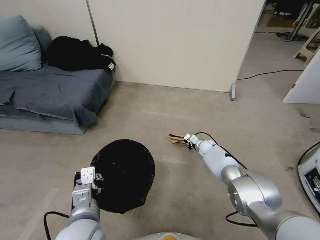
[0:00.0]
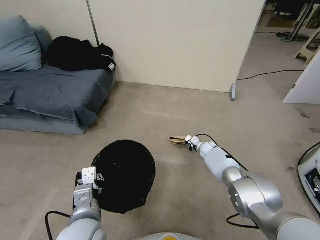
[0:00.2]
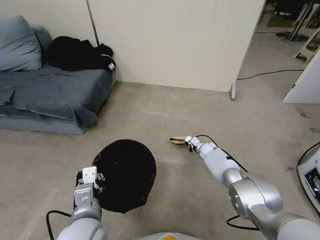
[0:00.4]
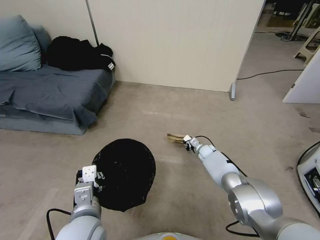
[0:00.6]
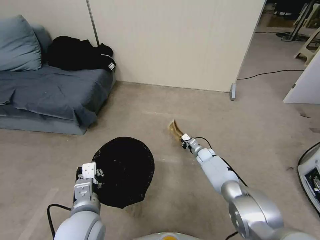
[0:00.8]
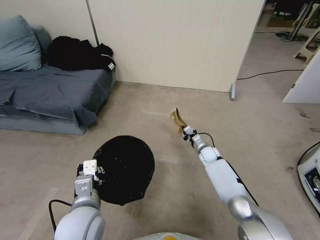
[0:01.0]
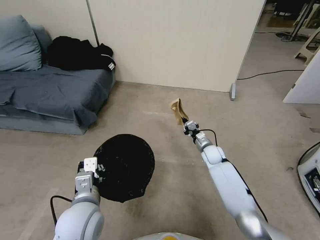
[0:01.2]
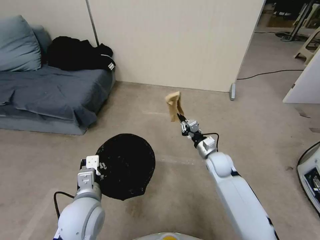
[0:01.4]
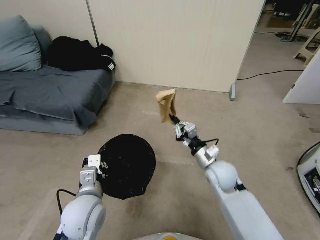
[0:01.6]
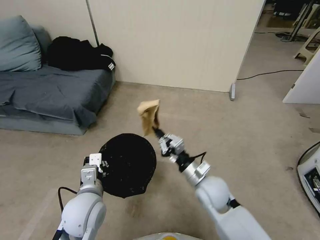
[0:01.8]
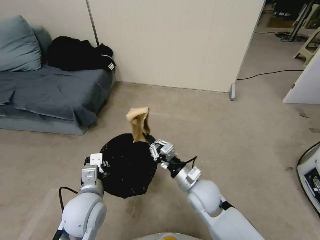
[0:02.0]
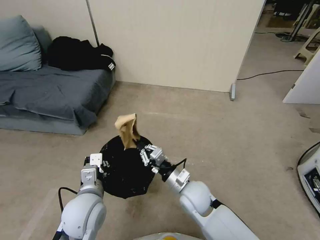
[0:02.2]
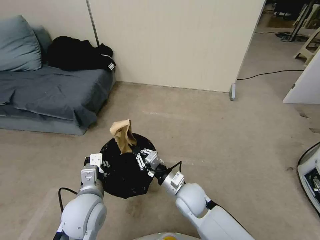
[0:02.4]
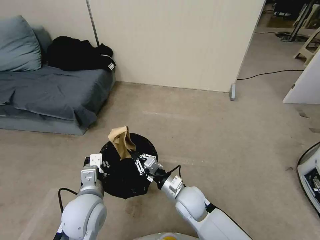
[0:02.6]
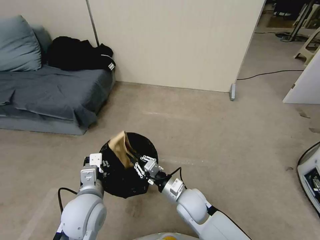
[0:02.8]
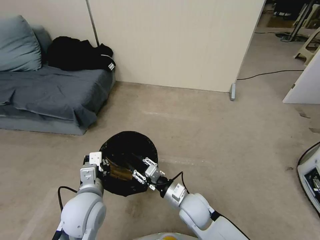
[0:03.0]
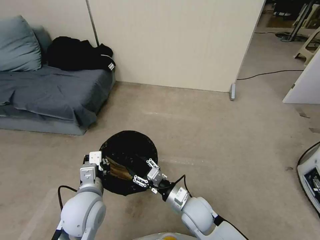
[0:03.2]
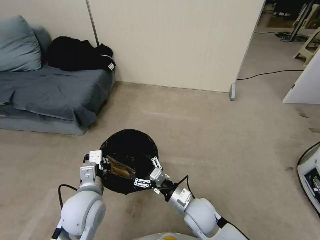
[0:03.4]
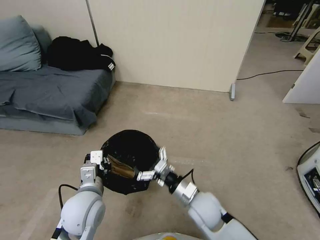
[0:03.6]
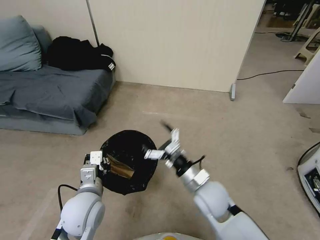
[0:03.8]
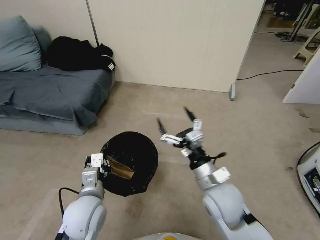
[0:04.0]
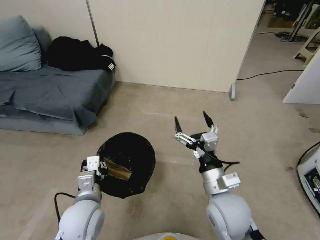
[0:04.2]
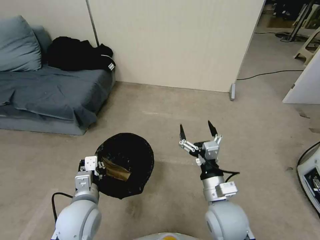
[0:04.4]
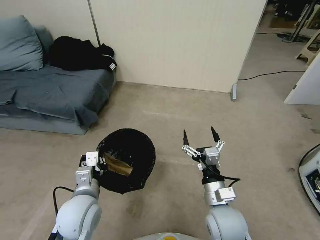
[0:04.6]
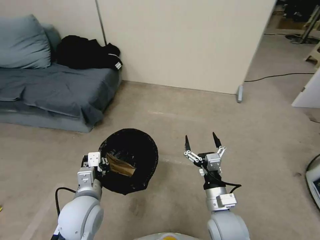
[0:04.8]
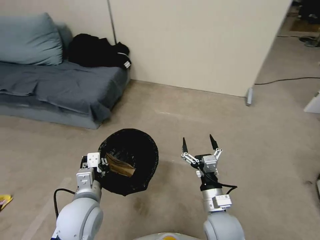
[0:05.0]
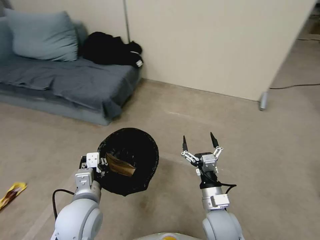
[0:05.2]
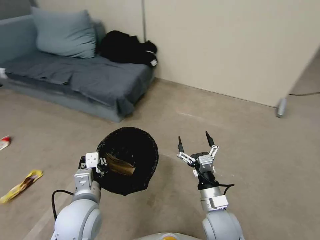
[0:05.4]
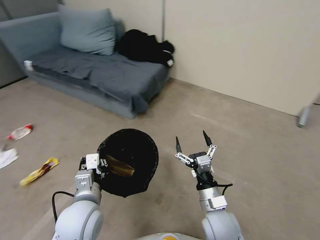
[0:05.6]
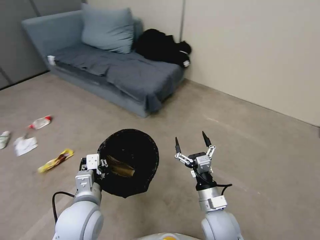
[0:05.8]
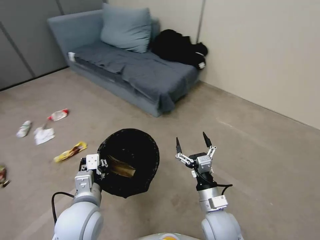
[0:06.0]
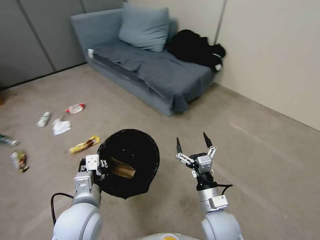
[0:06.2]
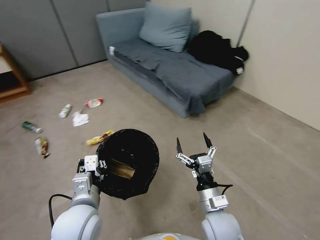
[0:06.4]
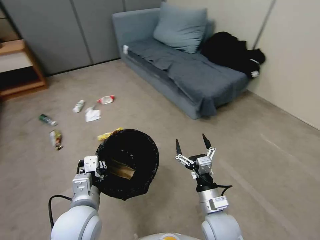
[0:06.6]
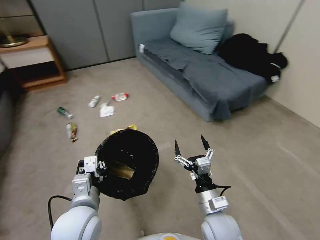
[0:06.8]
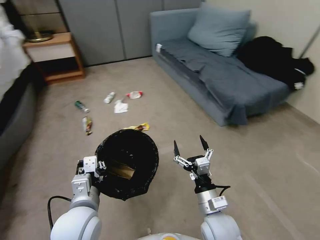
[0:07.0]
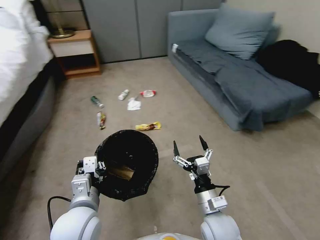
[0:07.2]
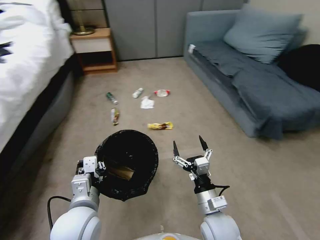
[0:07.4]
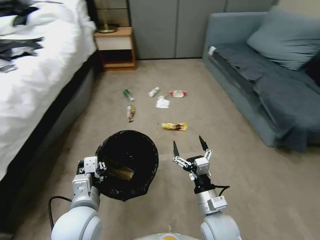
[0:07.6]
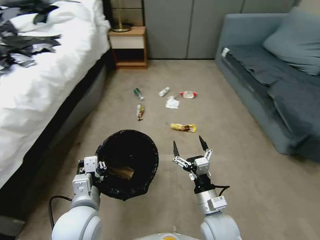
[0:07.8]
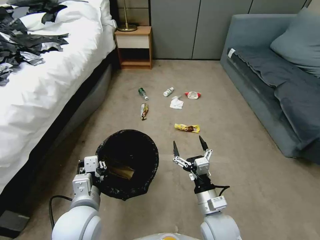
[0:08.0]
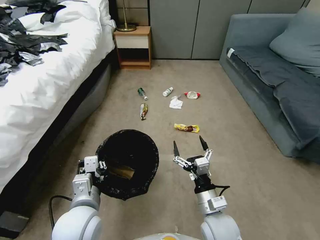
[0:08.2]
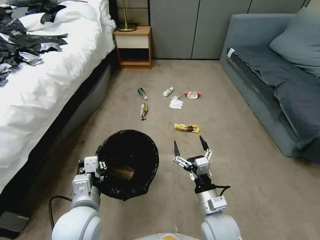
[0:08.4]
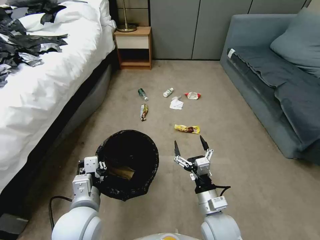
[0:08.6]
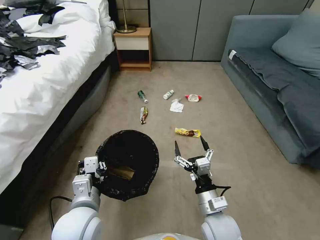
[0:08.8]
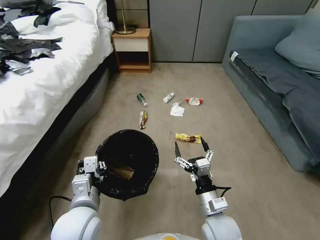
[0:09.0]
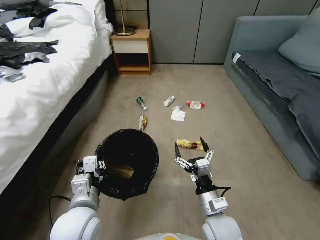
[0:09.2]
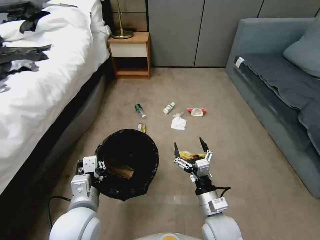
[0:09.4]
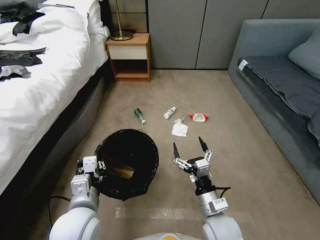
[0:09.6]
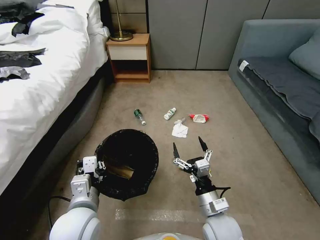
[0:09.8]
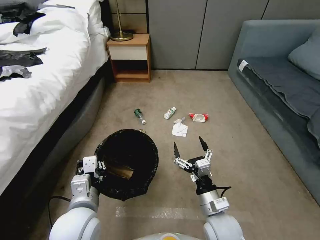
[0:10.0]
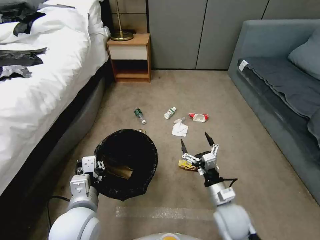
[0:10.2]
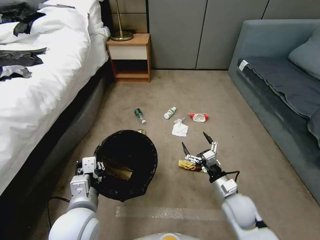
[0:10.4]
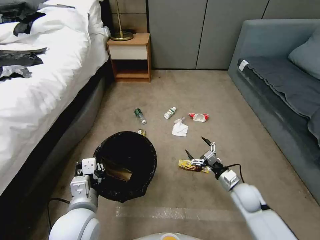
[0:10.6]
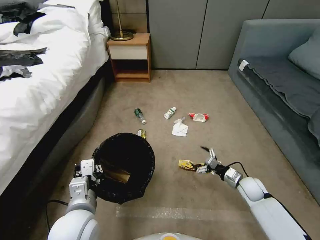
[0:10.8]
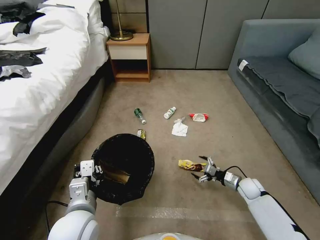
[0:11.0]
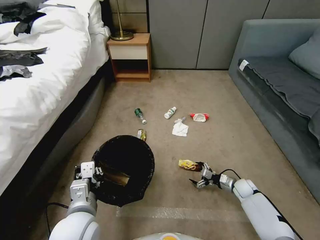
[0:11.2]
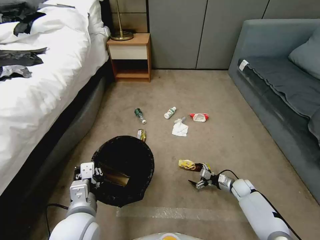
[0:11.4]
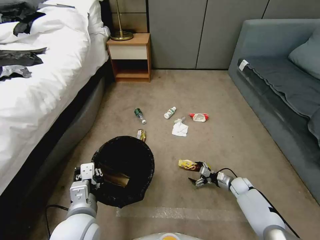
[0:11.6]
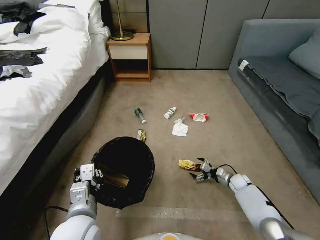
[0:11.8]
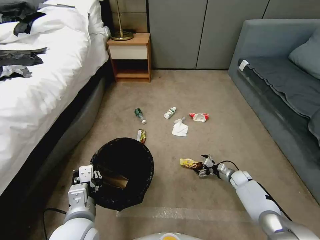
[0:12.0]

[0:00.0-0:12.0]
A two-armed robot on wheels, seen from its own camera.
Task of the whole recording: Pick up the trash bin, then pick up the garbage from the floor and place it into the trash bin.
0:00.0 to 0:01.6: The right gripper is displaced backward and upward by about 25 cm. Meanwhile the left gripper goes about 5 cm forward.
0:01.6 to 0:03.0: The right gripper shifts some 15 cm to the left, backward and downward.
0:03.0 to 0:04.4: The right gripper heads upward, to the right and backward, covering roughly 15 cm, and opens up.
0:04.4 to 0:06.0: The right gripper shifts some 5 cm downward.
0:09.0 to 0:10.4: The right gripper shifts some 10 cm to the right and forward.
0:10.4 to 0:12.0: The right gripper heads downward, forward and to the right, covering some 30 cm.

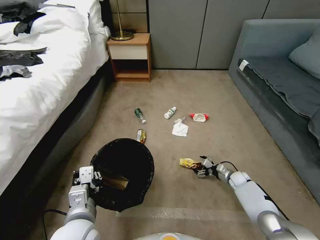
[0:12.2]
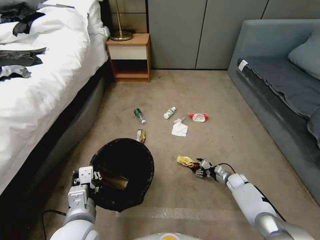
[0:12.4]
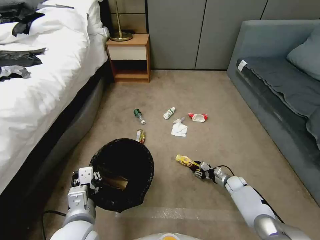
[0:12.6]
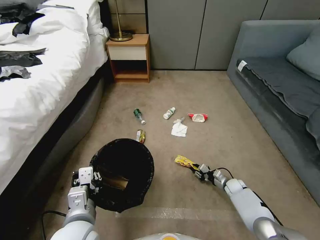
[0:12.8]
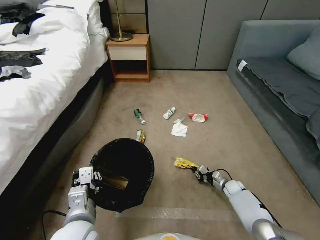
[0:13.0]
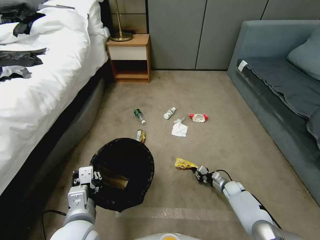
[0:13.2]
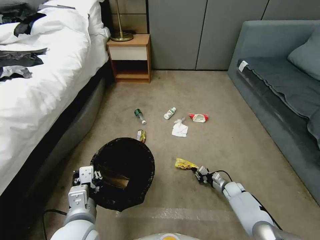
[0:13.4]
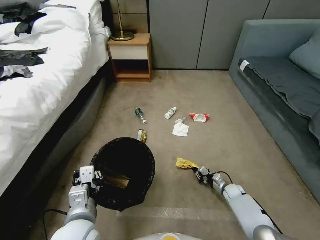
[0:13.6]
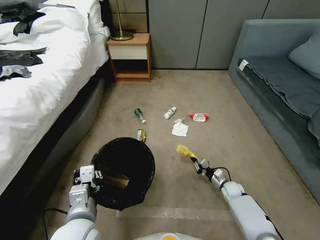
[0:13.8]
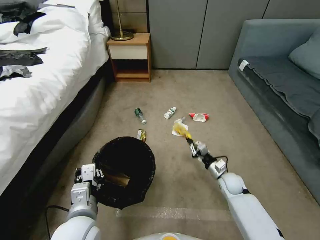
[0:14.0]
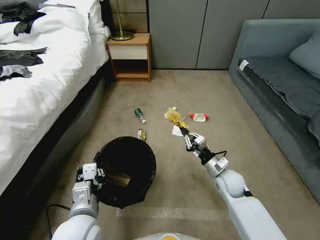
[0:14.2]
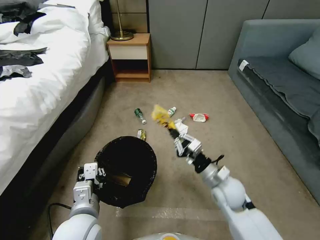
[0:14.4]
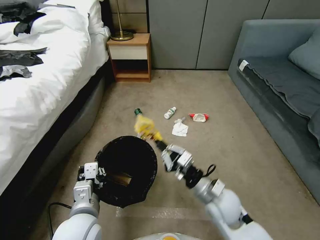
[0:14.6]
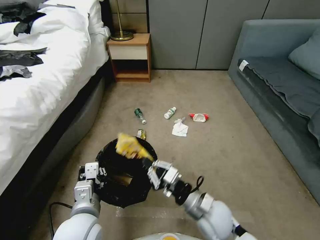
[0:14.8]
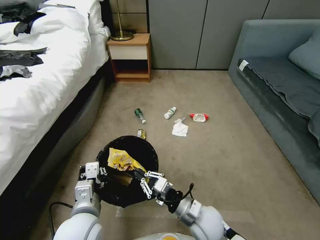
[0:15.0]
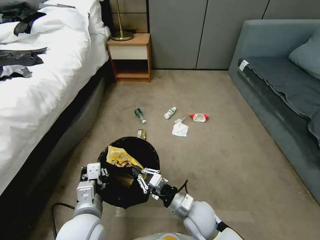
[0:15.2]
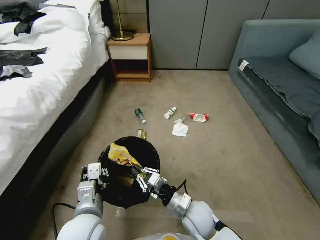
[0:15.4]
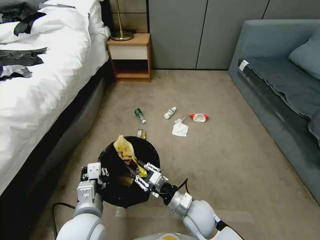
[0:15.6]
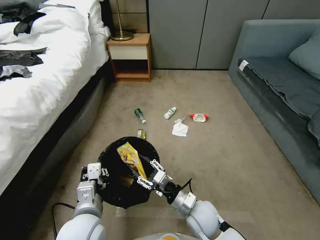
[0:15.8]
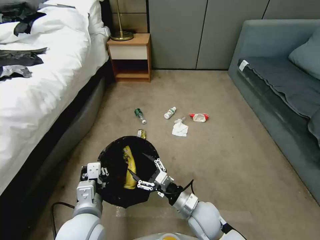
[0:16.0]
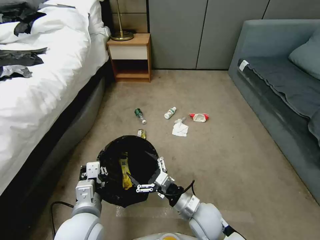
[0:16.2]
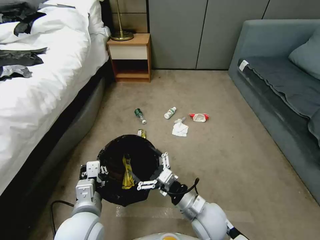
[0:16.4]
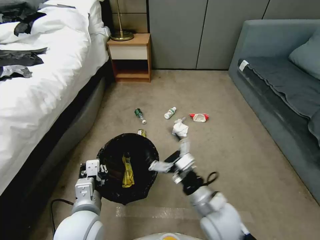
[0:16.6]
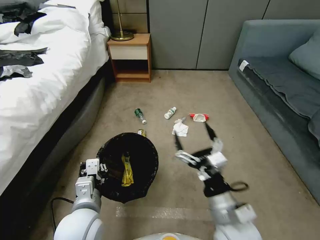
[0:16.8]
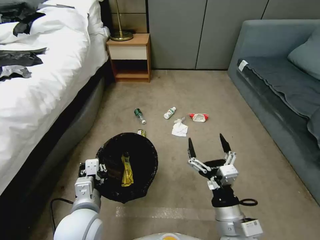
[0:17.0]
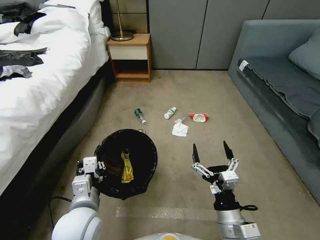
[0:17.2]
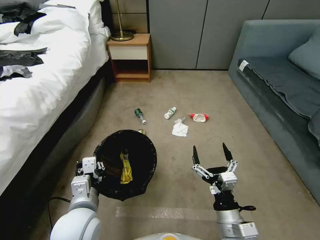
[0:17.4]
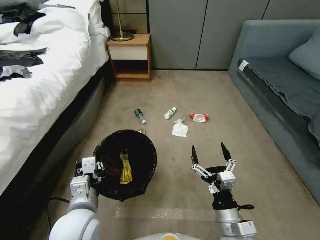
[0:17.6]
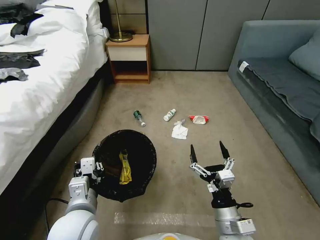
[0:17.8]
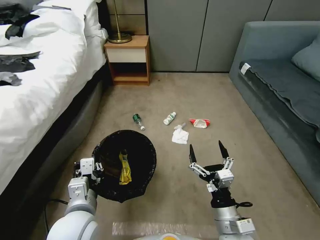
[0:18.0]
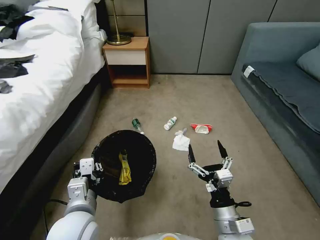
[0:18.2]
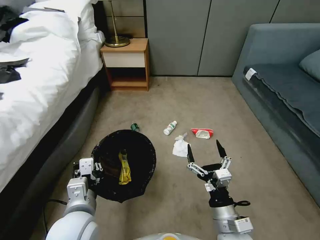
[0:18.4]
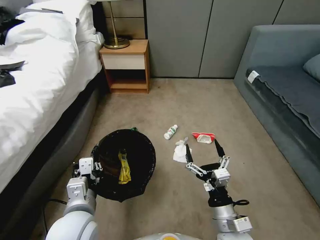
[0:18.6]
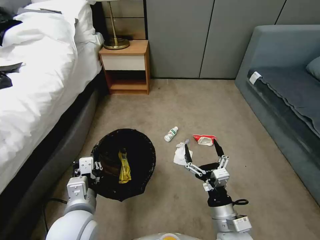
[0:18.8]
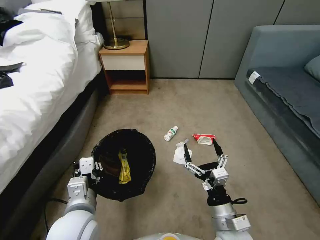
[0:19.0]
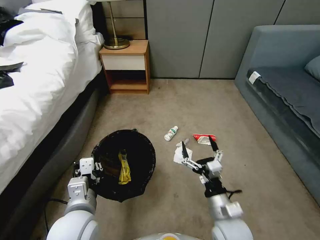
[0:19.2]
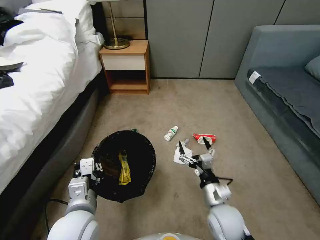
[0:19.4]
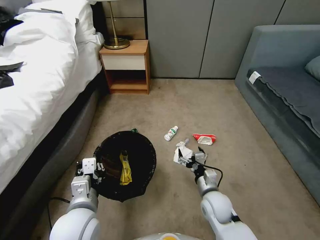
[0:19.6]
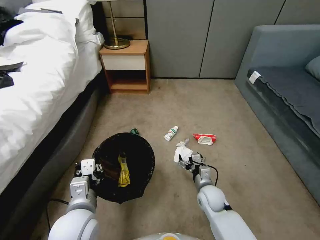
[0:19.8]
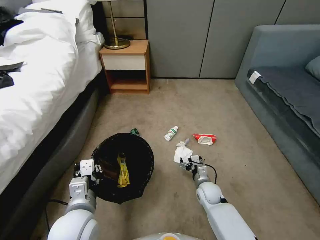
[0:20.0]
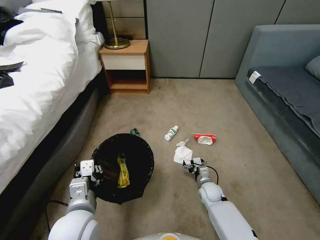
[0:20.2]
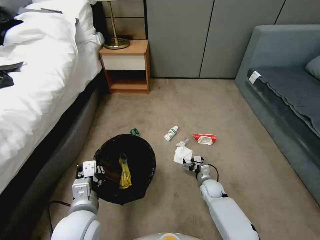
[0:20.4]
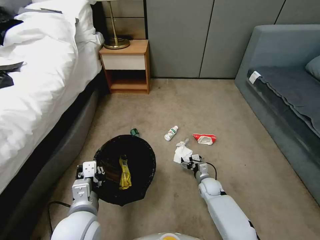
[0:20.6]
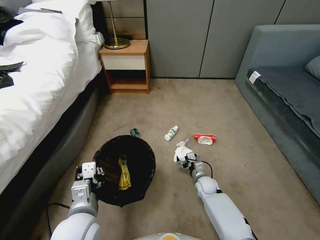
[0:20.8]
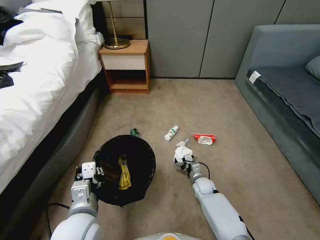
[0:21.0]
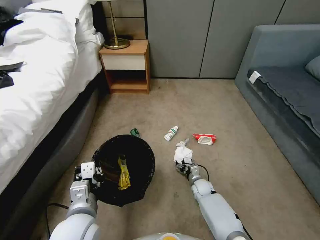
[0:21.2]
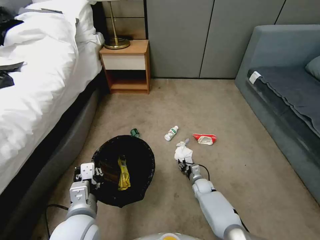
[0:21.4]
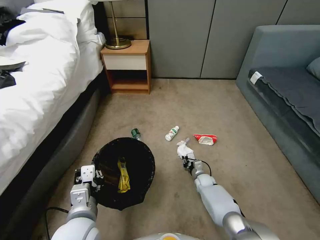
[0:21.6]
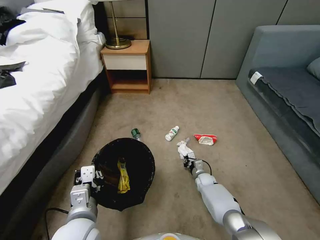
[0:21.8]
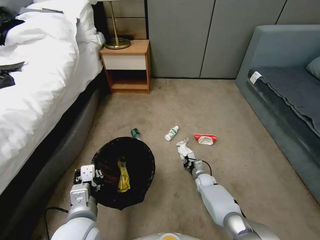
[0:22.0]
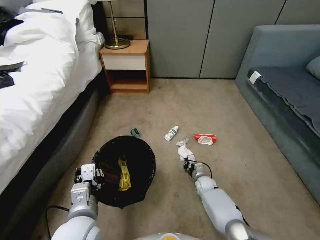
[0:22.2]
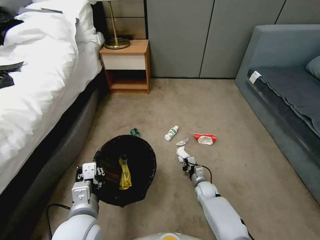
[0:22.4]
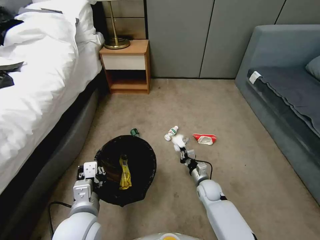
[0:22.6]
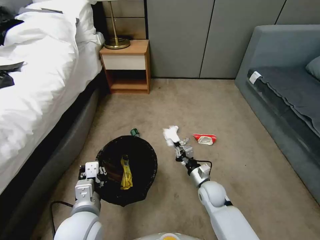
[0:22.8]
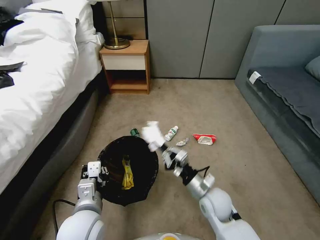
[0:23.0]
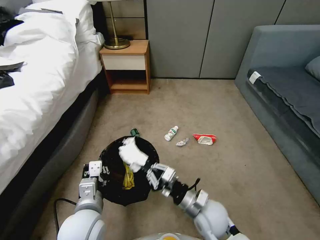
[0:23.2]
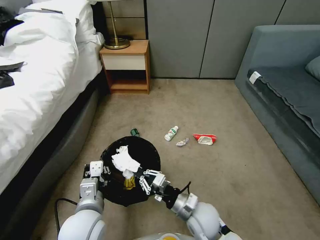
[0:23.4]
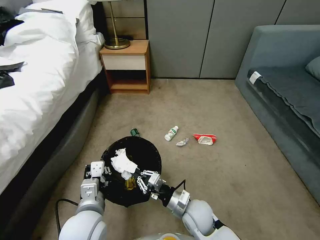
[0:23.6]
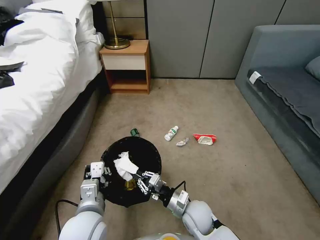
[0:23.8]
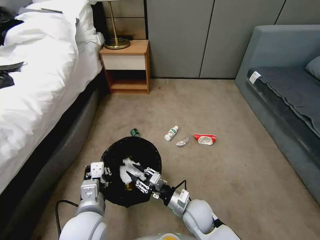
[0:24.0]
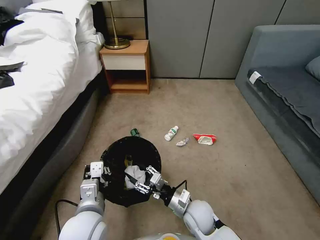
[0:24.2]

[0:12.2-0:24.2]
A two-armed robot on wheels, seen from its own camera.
Task of the whole recording: Pick up the trash bin, then pick up the garbage from the floor and place it into the trash bin.
0:12.2 to 0:13.8: The right gripper moves some 5 cm, and closes.
0:13.8 to 0:15.2: The right gripper travels to the left, upward and backward by some 35 cm.
0:15.2 to 0:16.6: The right gripper goes about 10 cm upward, and opens its fingers.
0:16.6 to 0:18.2: The right gripper goes about 5 cm backward.
0:18.2 to 0:19.8: The right gripper shifts approximately 20 cm forward and downward.
0:19.8 to 0:21.2: The right gripper shifts roughly 15 cm downward and forward.
0:21.2 to 0:22.6: The right gripper closes its fingers.
0:22.6 to 0:24.2: The right gripper is displaced upward, backward and to the left by about 20 cm, and opens its fingers.
